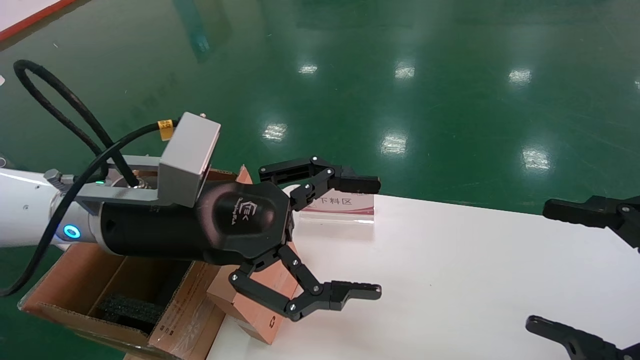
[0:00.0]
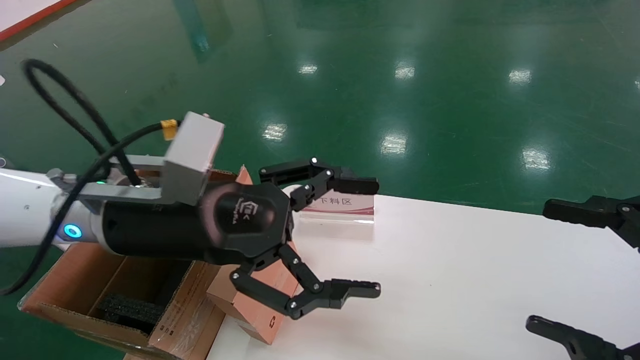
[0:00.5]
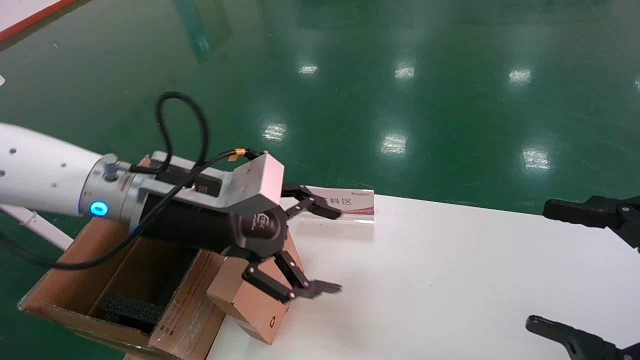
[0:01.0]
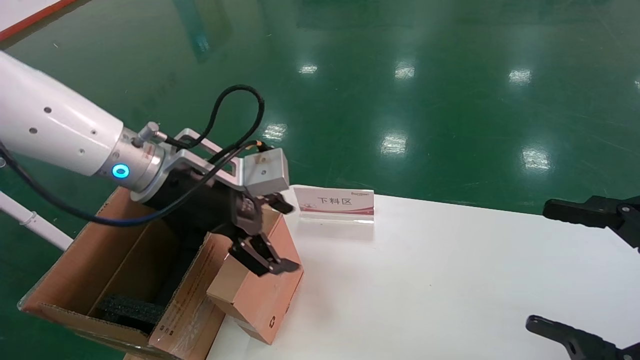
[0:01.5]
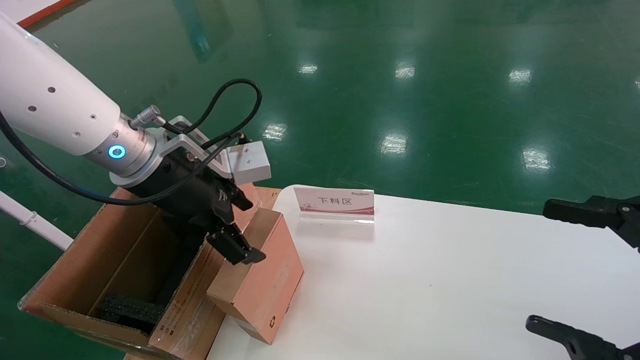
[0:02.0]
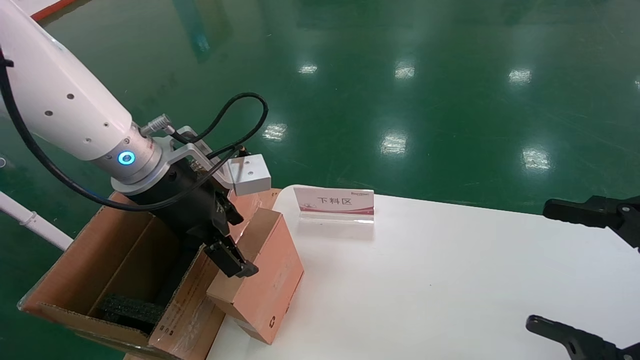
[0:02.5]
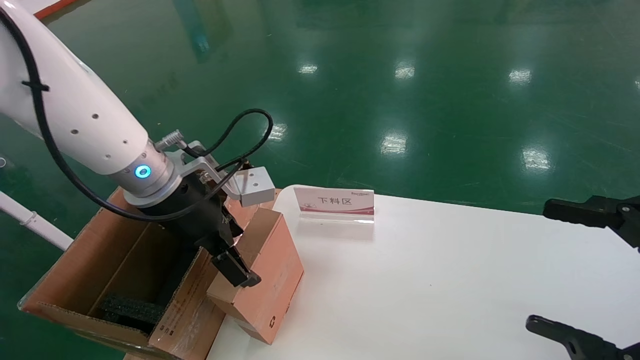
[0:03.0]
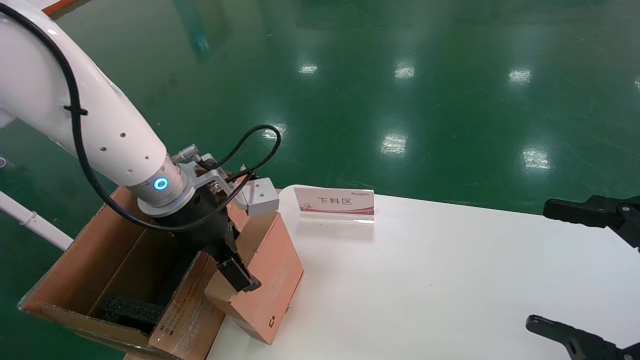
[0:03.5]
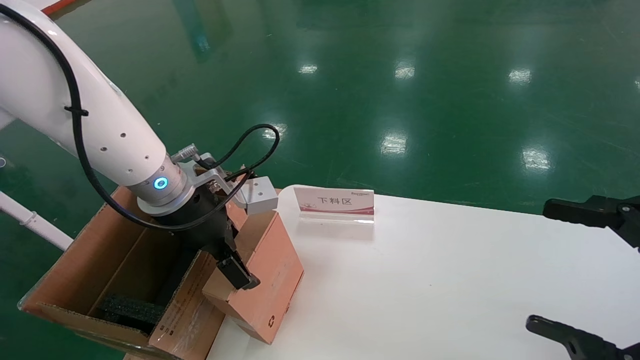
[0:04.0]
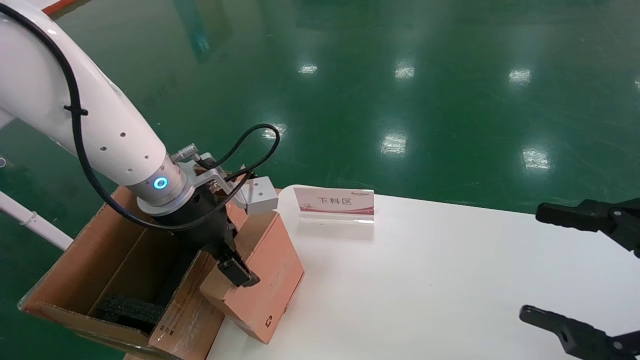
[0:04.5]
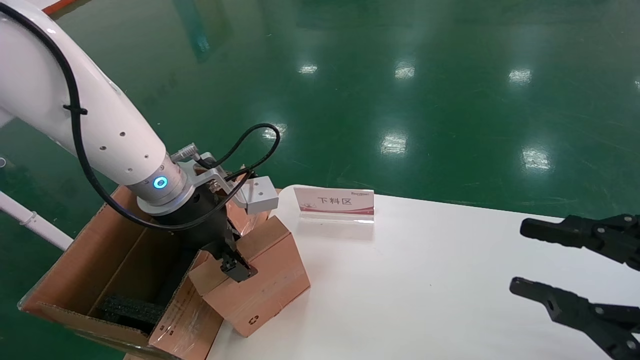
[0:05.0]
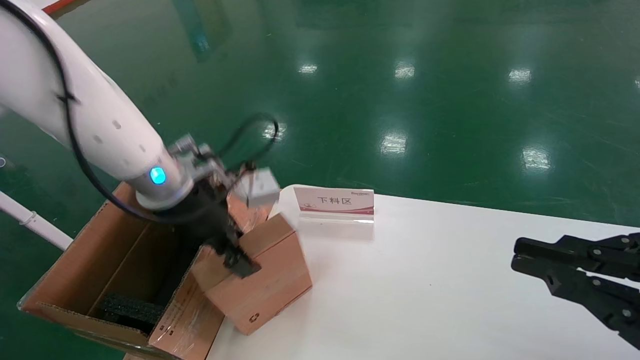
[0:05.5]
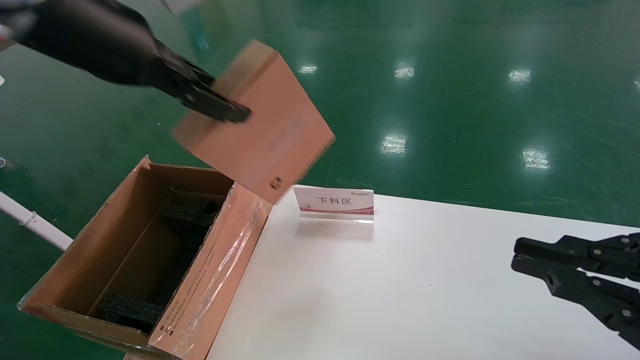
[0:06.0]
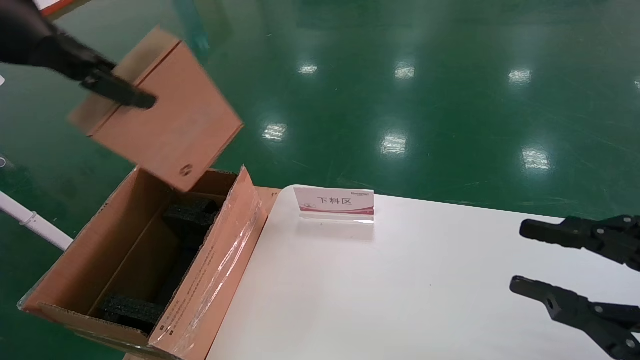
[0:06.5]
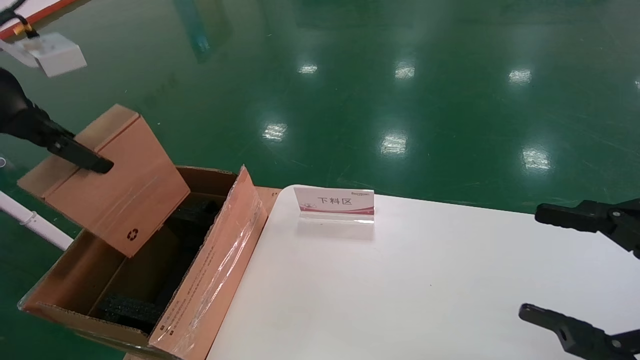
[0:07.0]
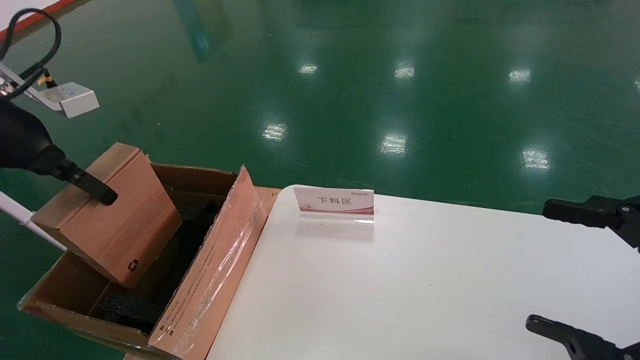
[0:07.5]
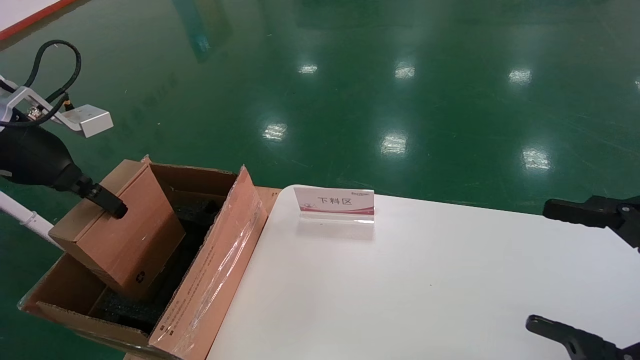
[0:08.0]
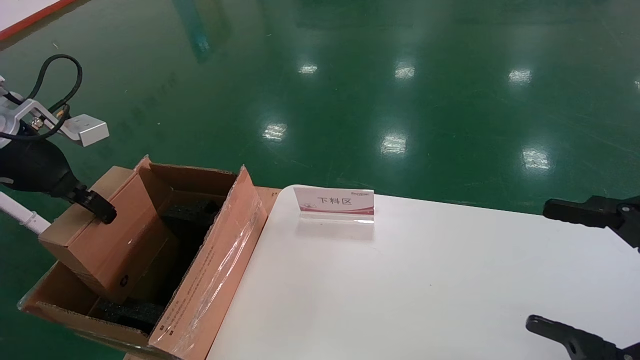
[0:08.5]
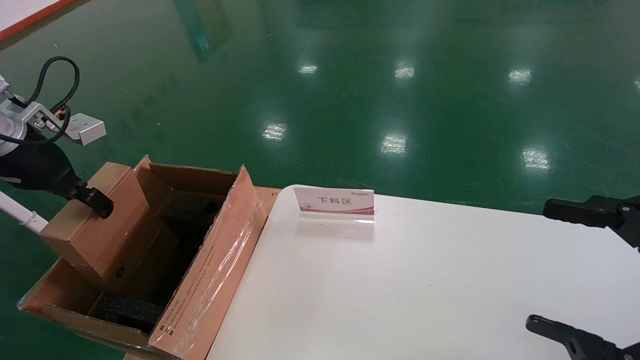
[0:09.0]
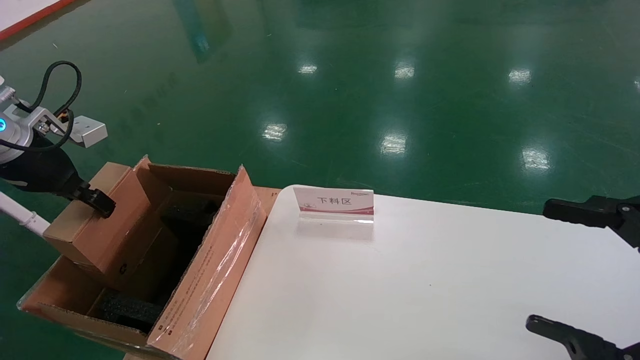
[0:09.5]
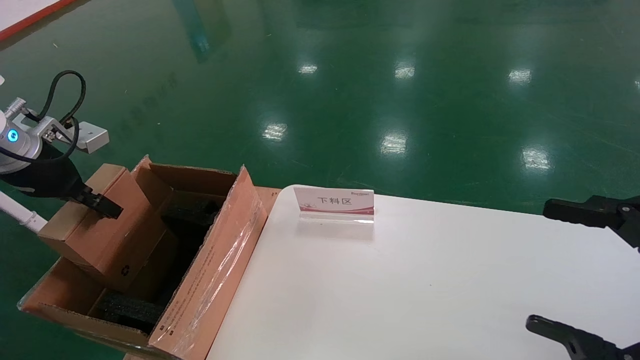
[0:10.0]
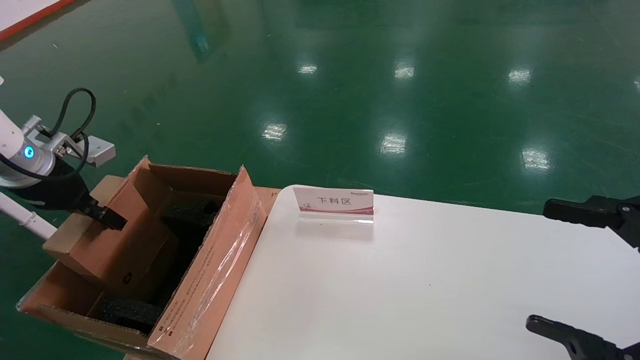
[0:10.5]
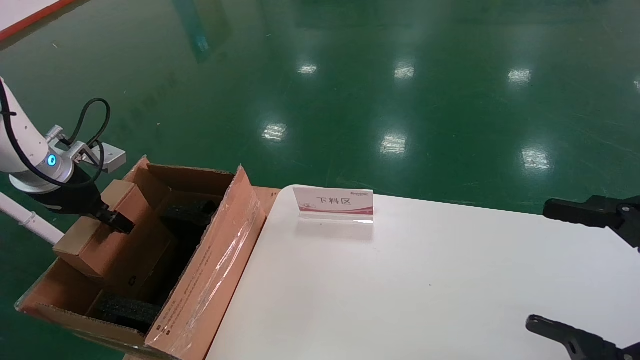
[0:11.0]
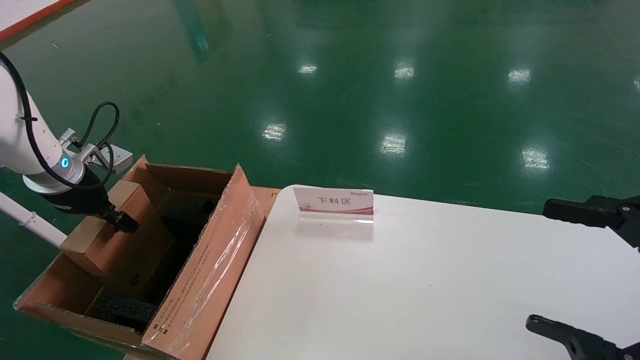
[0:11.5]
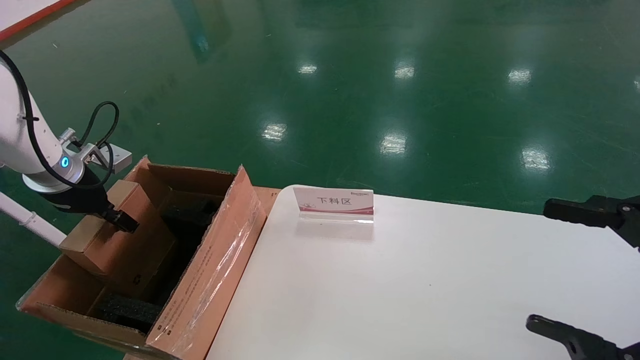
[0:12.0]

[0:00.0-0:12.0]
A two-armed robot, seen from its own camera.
Task of the whole recording: pick up the small cardboard box and load it into the large cardboard box.
Step, 0:01.0 to 0:05.5: Pick up the mouse and power cord box.
0:00.0 to 0:02.0: The left gripper is displaced forward by some 5 cm.
0:02.0 to 0:04.0: The left gripper changes place by about 5 cm.
0:04.0 to 0:06.0: The right gripper closes; the left gripper travels upward by about 20 cm, and closes up.
0:06.0 to 0:08.0: The left gripper travels to the left and downward by approximately 20 cm. The right gripper opens.
0:08.0 to 0:10.0: The left gripper shifts by roughly 5 cm.
0:10.0 to 0:12.0: The left gripper moves about 5 cm.

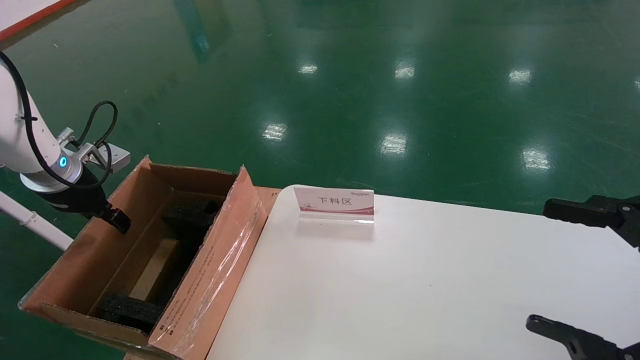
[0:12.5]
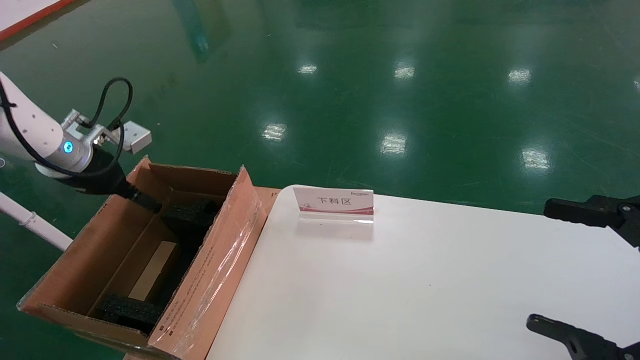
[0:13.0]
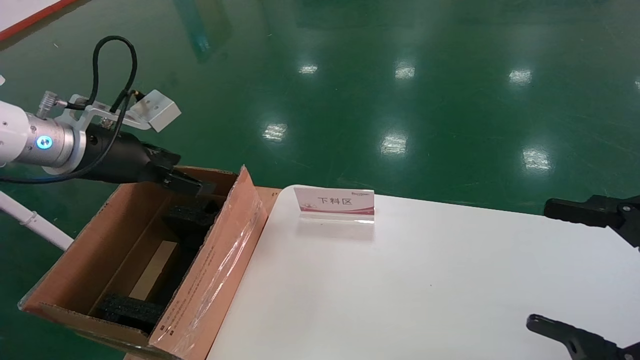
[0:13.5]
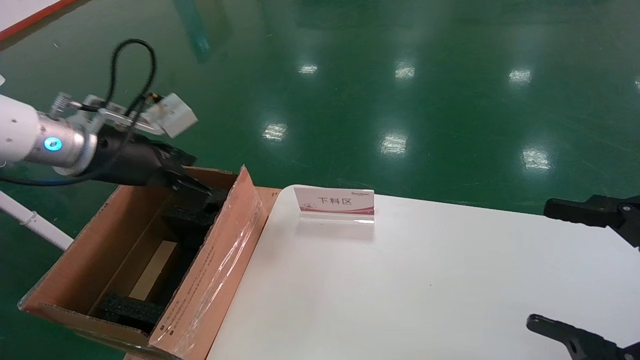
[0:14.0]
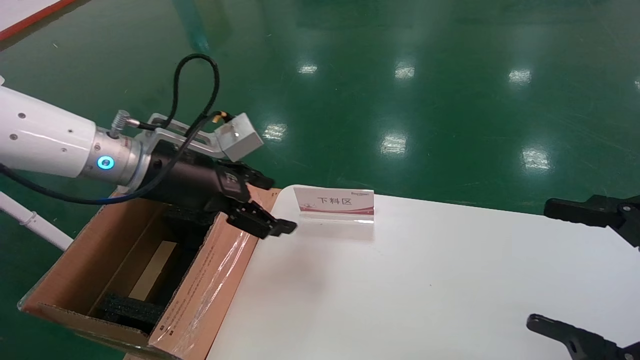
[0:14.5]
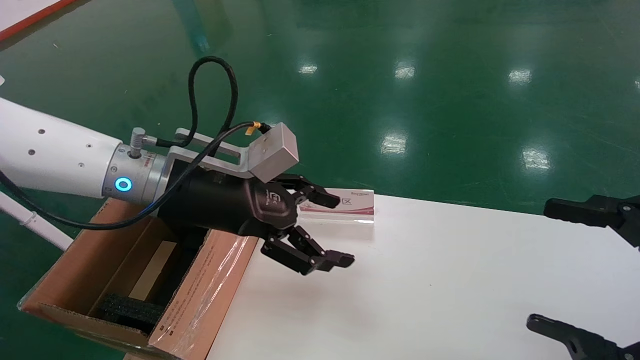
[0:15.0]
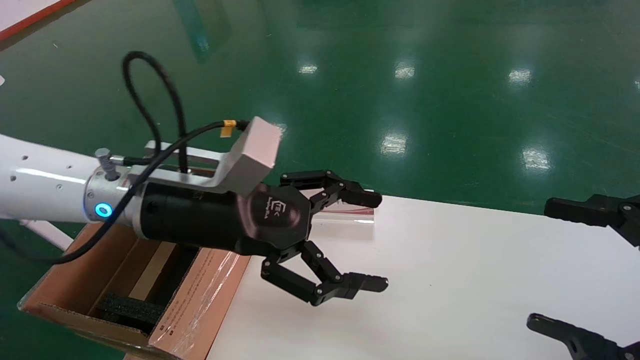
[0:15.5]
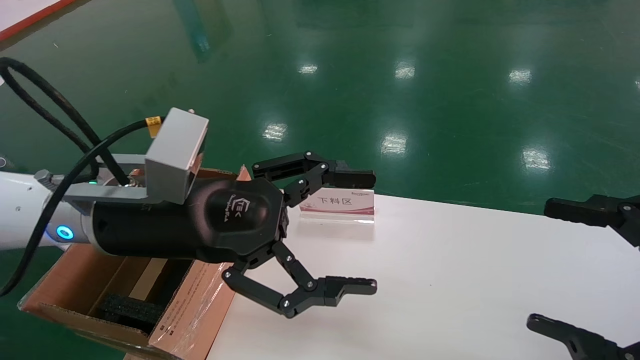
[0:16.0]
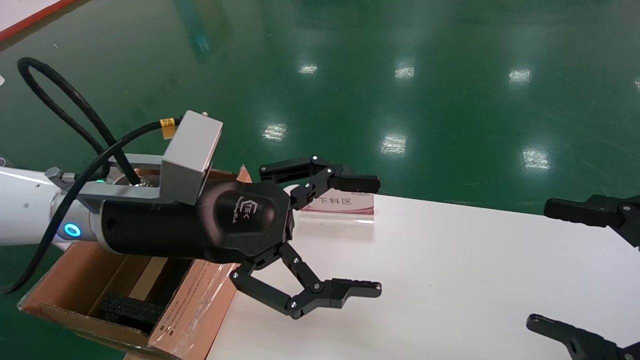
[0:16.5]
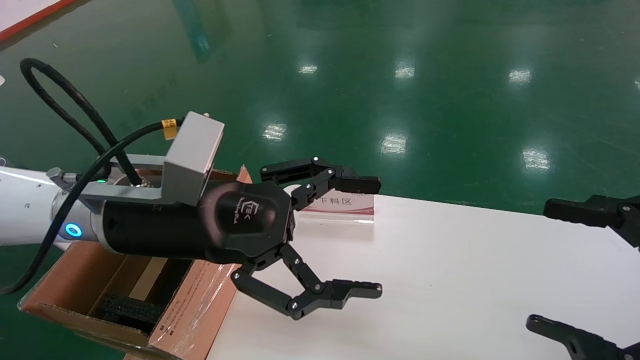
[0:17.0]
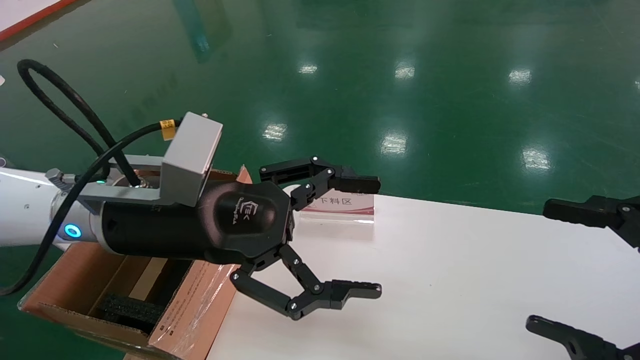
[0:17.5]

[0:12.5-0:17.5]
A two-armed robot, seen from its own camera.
Task of the whole recording: pick up the small cardboard box and load it into the large cardboard box.
0:12.5 to 0:15.0: The left gripper travels to the right by some 25 cm, and opens.
0:15.0 to 0:17.5: The left gripper shifts some 5 cm backward.
